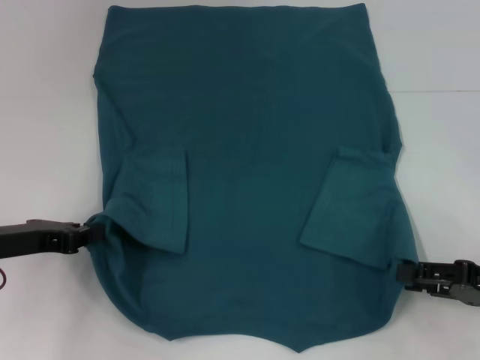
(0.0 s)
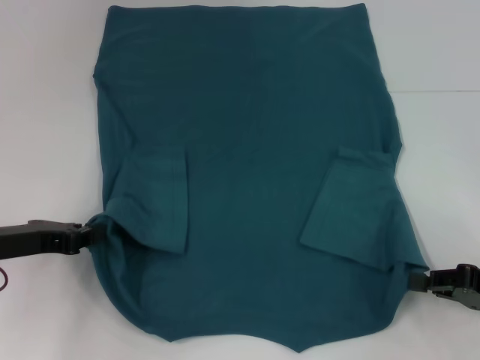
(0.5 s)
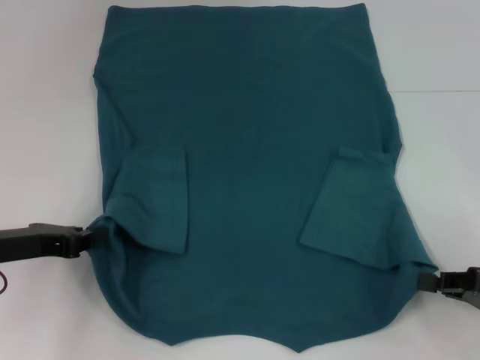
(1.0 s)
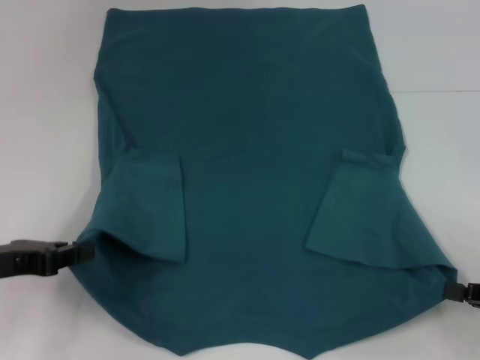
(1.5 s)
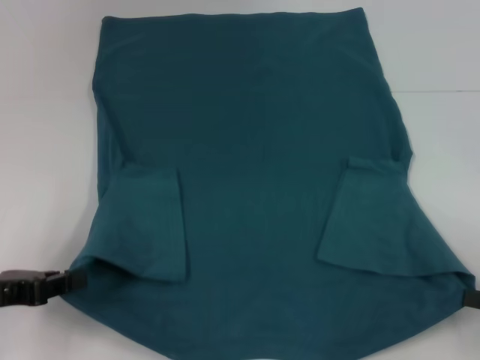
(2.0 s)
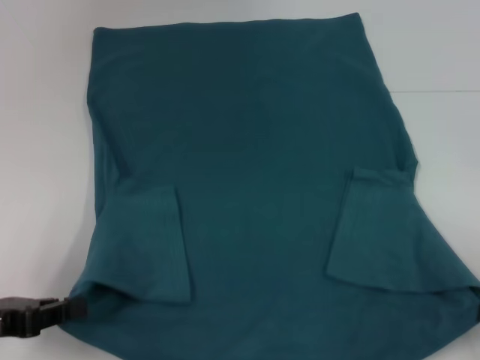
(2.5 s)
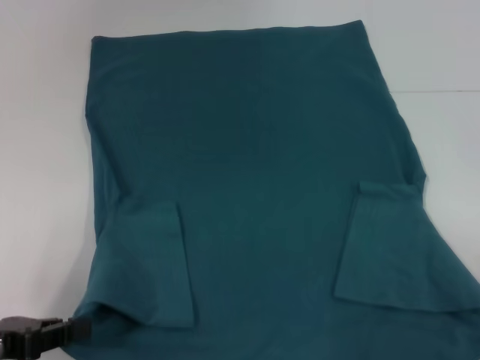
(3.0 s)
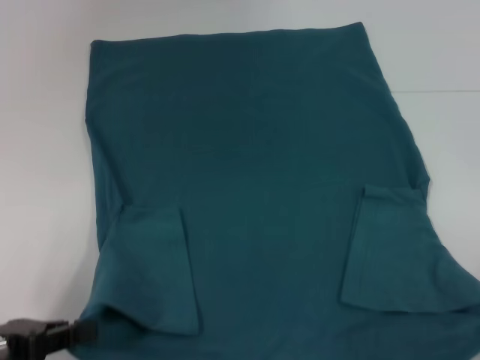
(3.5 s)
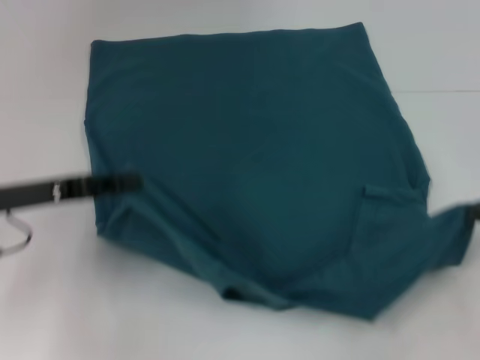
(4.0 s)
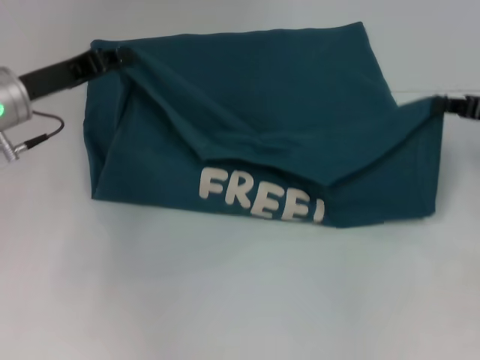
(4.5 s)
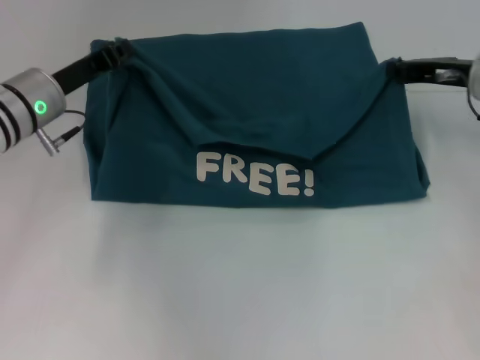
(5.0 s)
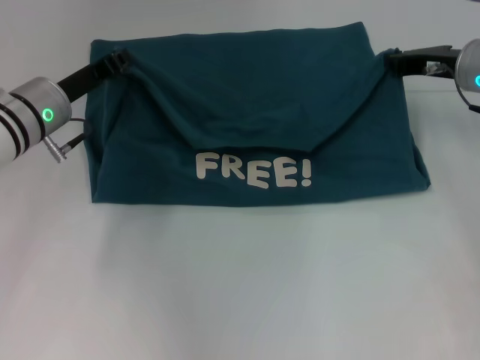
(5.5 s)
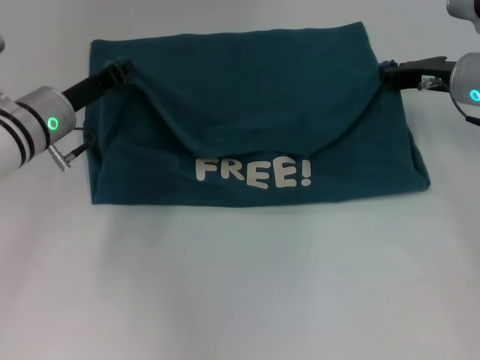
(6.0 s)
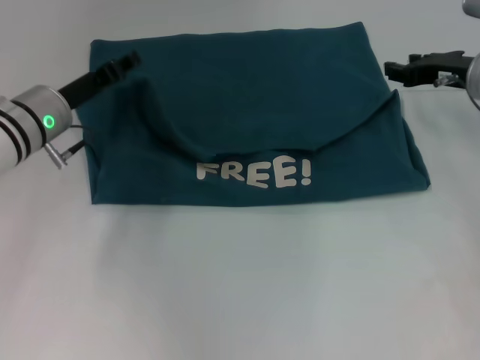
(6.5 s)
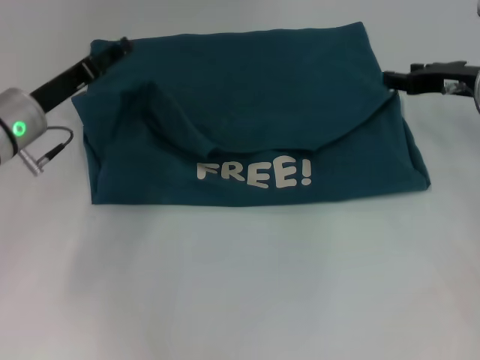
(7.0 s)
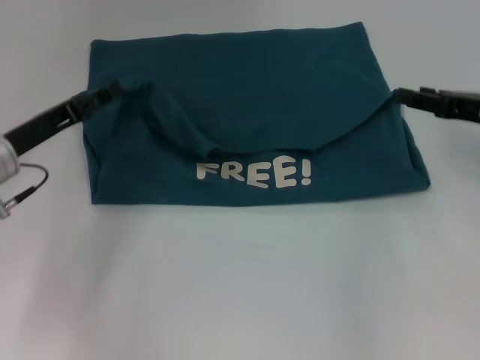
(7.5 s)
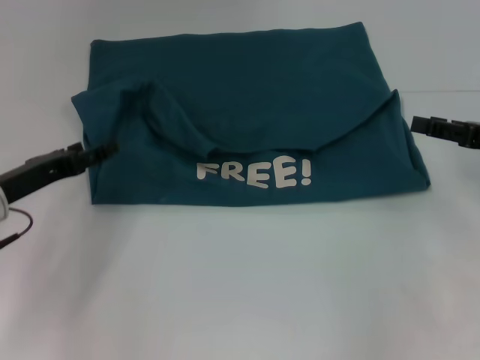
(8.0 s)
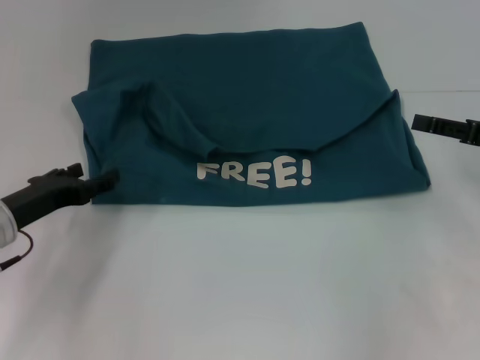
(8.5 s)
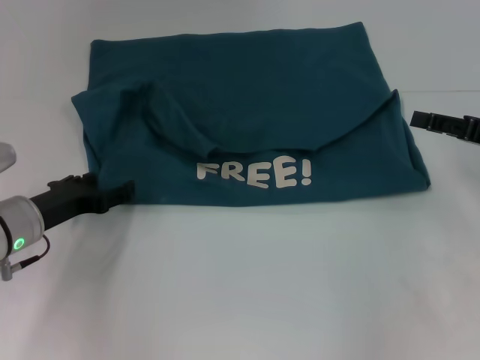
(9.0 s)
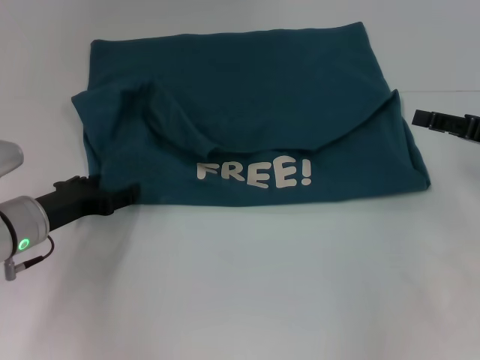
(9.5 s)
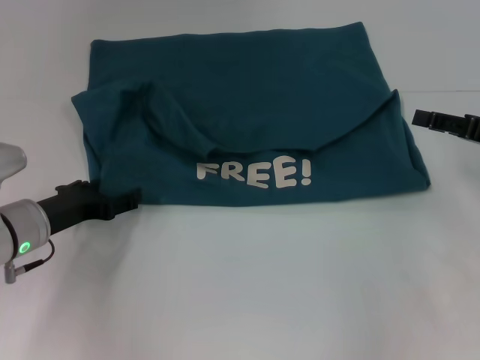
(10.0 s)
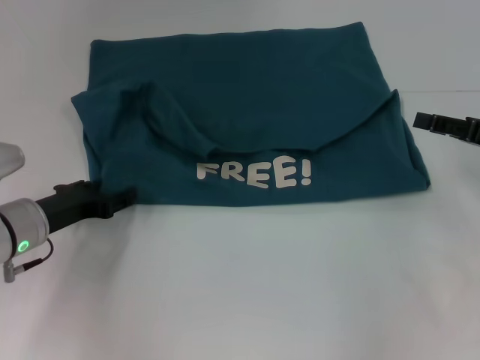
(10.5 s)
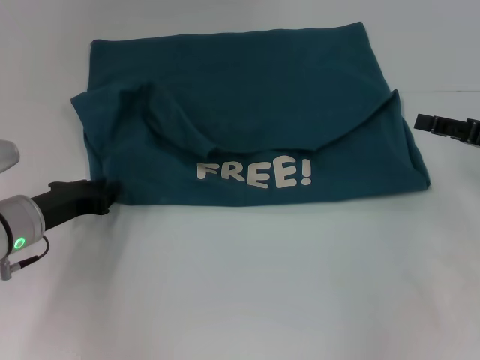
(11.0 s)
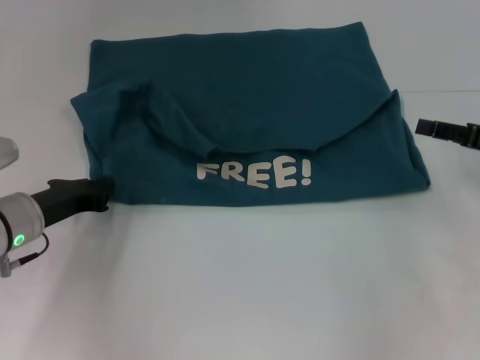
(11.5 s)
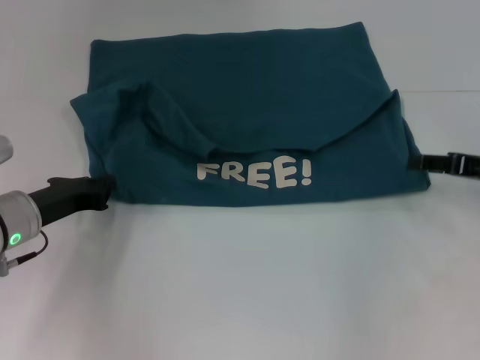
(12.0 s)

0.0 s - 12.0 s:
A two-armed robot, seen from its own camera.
Step, 1.0 s - 6.5 s: Fold the clothes to the left.
Step, 1.0 s - 6.5 s: Fold the clothes to the right.
0.0 s - 2.0 s: The right gripper shifts by about 5 cm, and closes. The left gripper moves backward, some 5 cm.
2.0 s - 4.0 s: Both grippers move forward, roughly 5 cm.
4.0 s - 6.0 s: The left gripper heads forward and to the right, covering about 15 cm; the right gripper is displaced forward and to the left by about 20 cm.
6.0 s - 8.0 s: The left gripper shifts roughly 10 cm backward and to the left, and opens its fingers. Meanwhile the right gripper is displaced backward and to the right by approximately 15 cm, and opens.
10.0 s - 12.0 s: The left gripper closes.

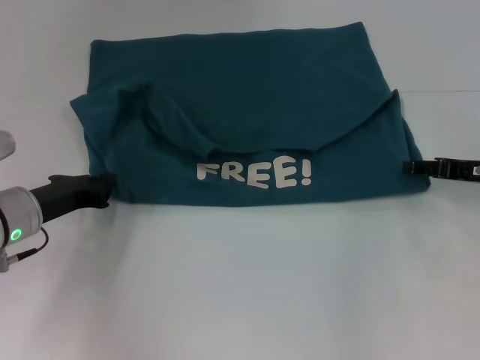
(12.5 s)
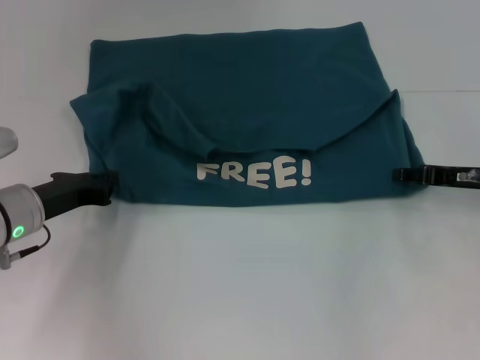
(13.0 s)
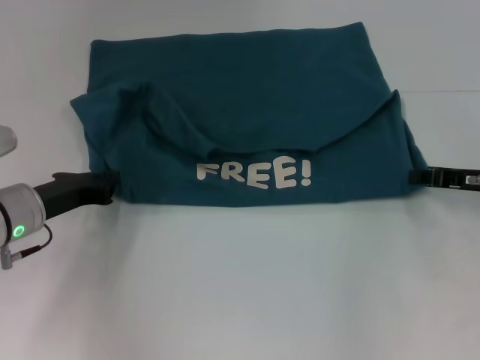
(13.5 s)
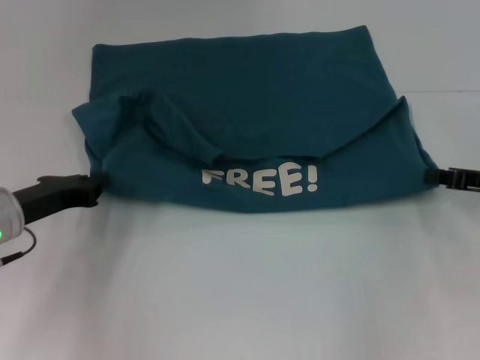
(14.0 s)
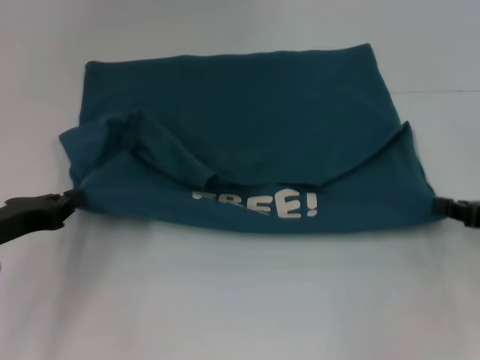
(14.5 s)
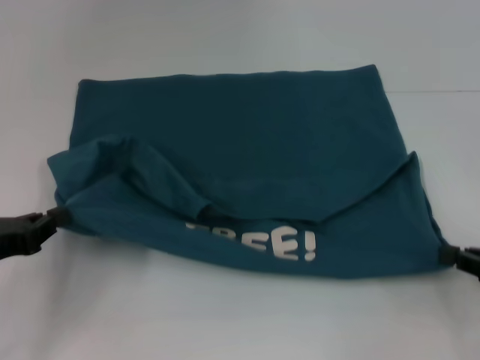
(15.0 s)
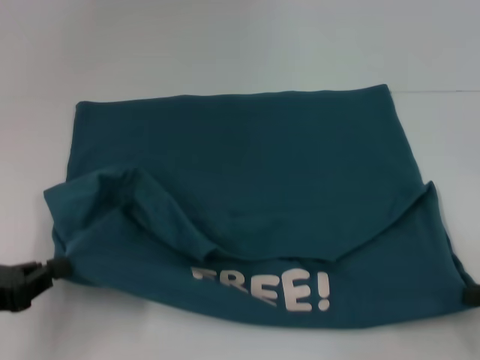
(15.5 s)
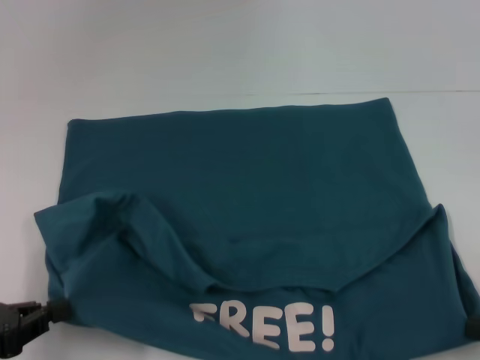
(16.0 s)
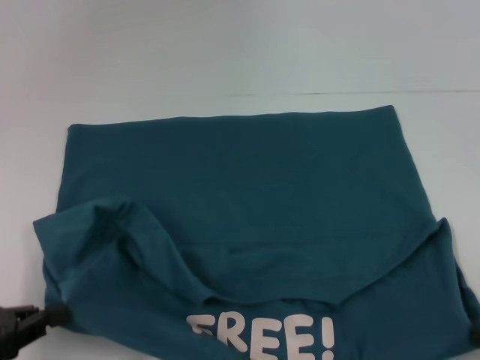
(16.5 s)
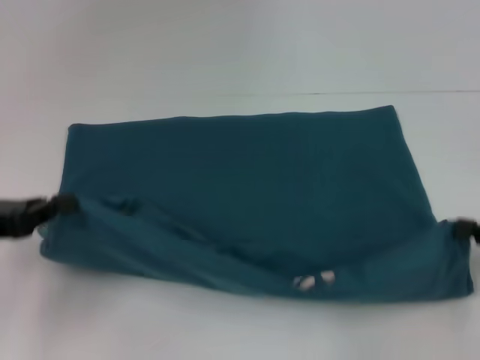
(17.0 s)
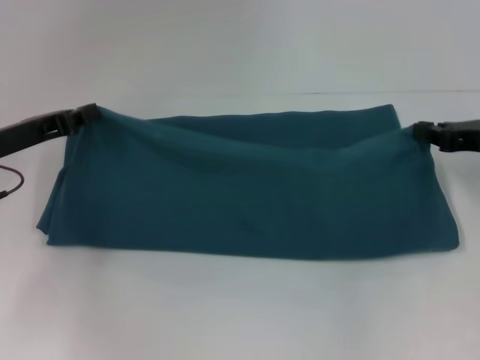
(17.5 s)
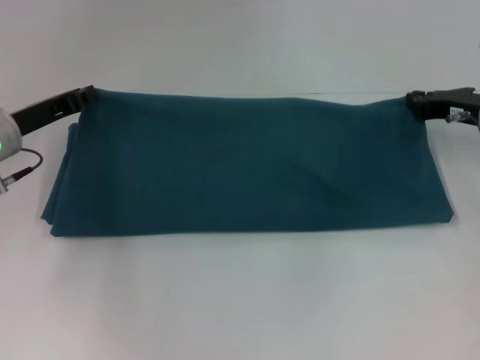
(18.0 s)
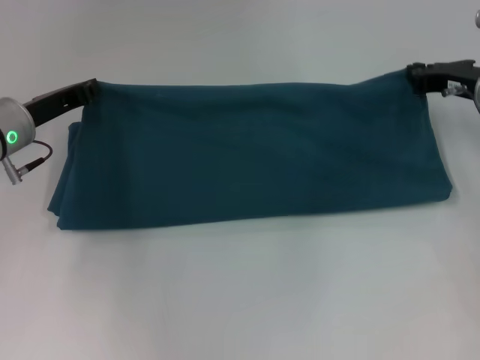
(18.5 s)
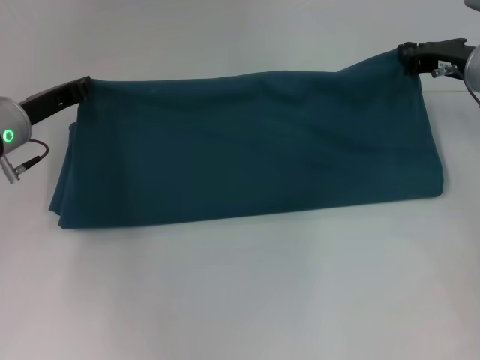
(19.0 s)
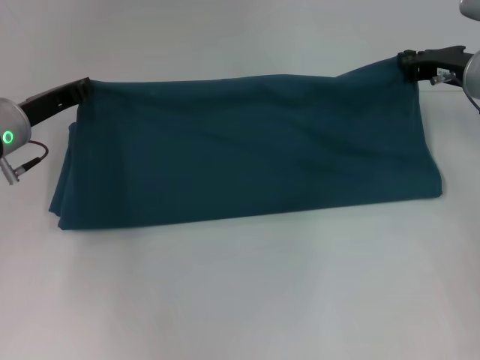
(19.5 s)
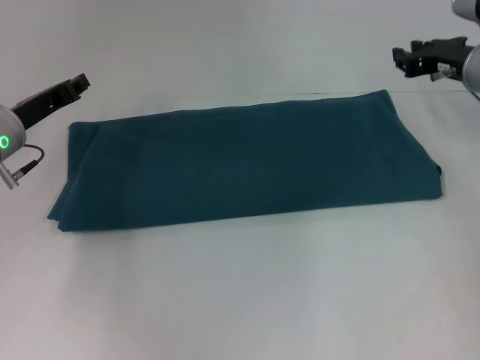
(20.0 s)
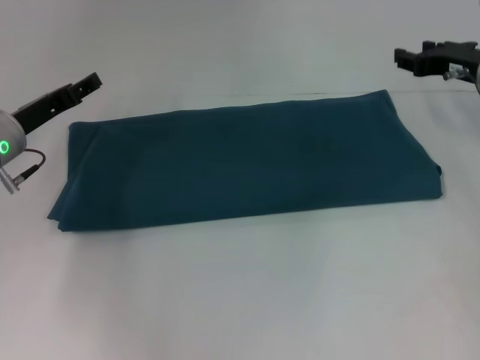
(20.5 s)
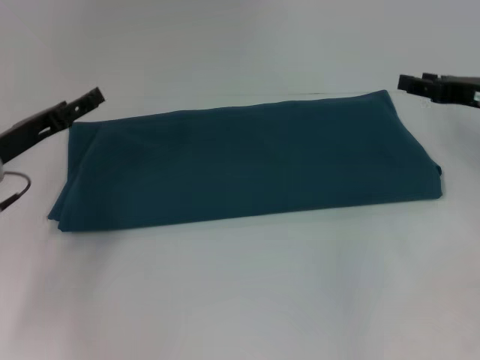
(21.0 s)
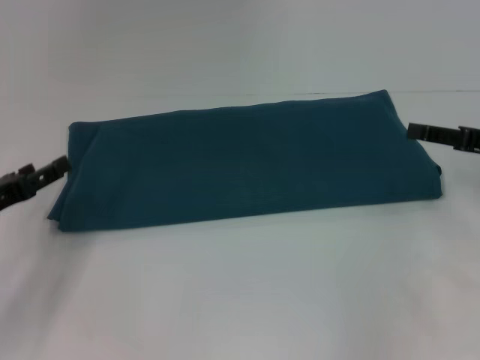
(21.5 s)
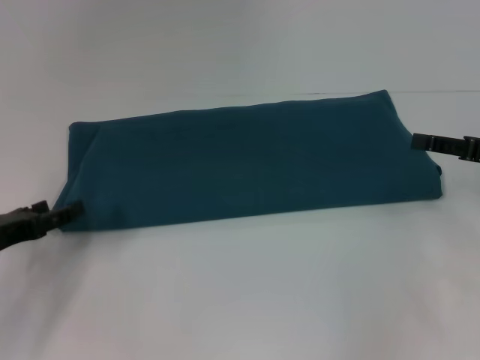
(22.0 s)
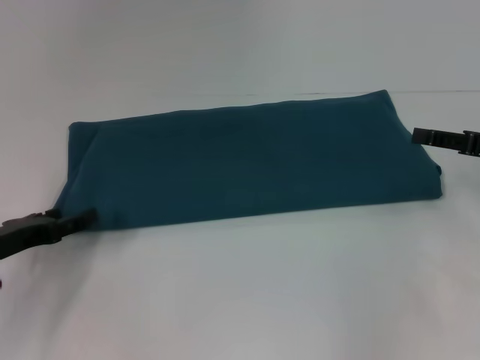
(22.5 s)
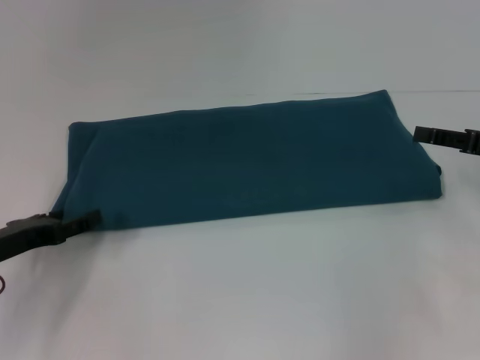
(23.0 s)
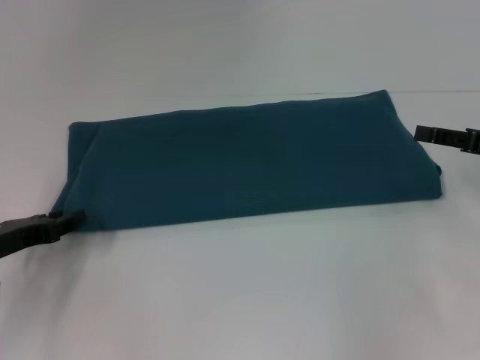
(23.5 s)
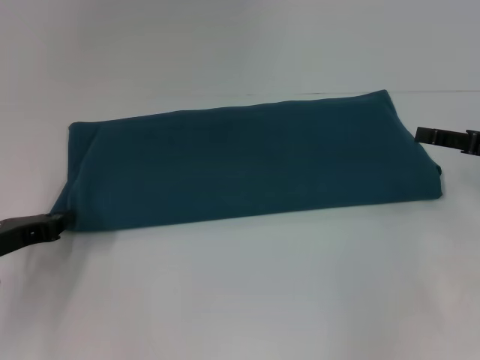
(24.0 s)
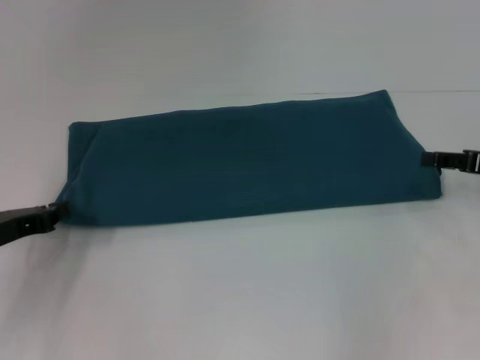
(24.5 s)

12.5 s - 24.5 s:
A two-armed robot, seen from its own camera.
Step, 12.5 s - 16.0 s: Pull the clothes with your left hand.
Step, 12.5 s - 16.0 s: Pull the clothes with your right hand.
Step, 16.5 s - 20.0 s: Fold the clothes to the right.
12.5 s - 14.5 s: The two grippers go approximately 5 cm backward. The right gripper closes its fingers.
14.5 s - 16.5 s: Both grippers move backward, roughly 10 cm.
16.5 s - 18.5 s: Both grippers travel together forward, roughly 25 cm.
18.5 s - 20.5 s: The right gripper opens its fingers, while the left gripper opens.
20.5 s - 22.5 s: The left gripper heads backward, covering roughly 10 cm. The right gripper moves backward and to the right, about 10 cm.
22.5 s - 24.5 s: The left gripper closes up.

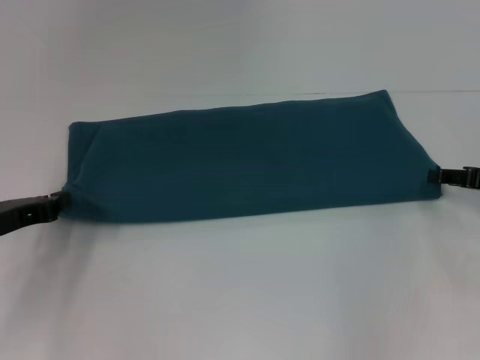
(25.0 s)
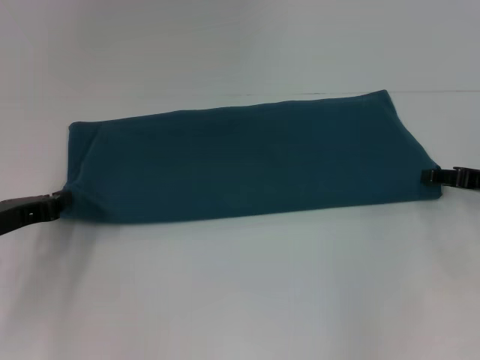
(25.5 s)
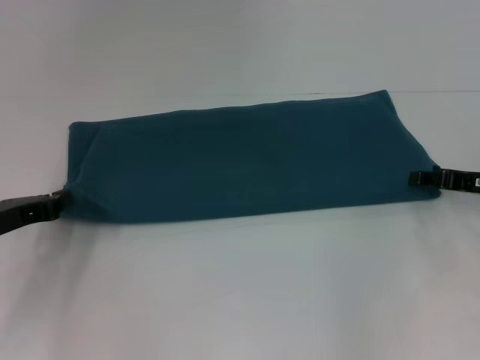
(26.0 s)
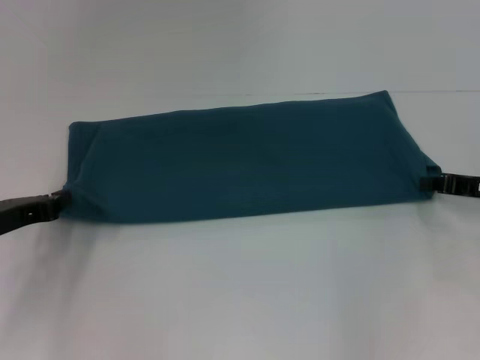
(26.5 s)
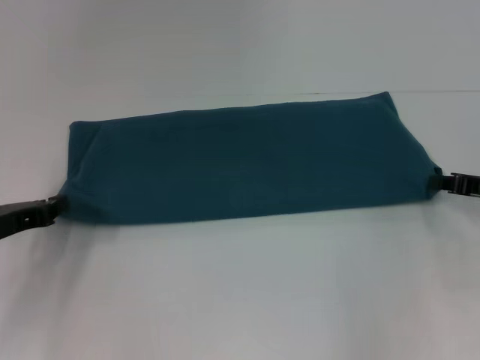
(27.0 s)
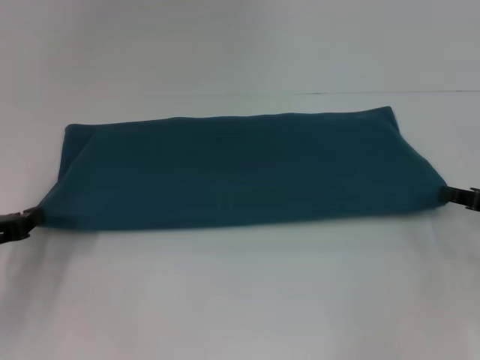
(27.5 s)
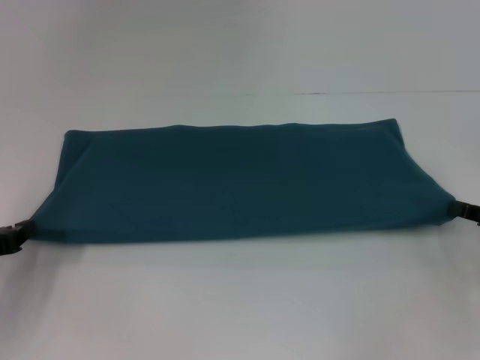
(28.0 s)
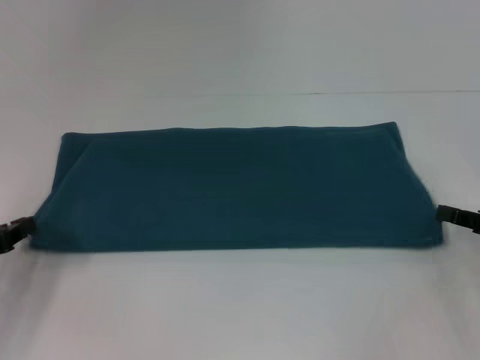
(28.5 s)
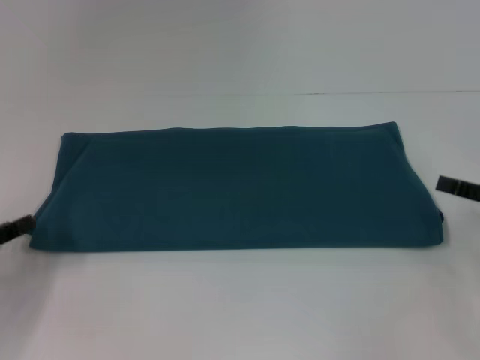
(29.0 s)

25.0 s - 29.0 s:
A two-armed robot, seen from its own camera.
25.0 s - 27.0 s: The right gripper closes up.
27.0 s - 29.0 s: Both grippers move backward, about 5 cm. The left gripper opens. The right gripper opens its fingers.
